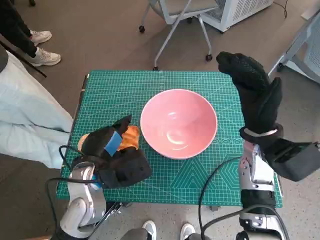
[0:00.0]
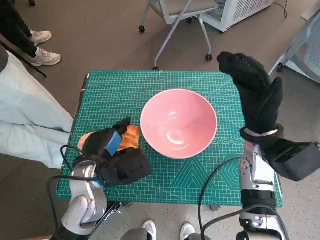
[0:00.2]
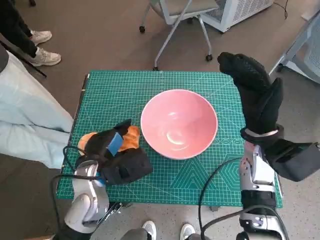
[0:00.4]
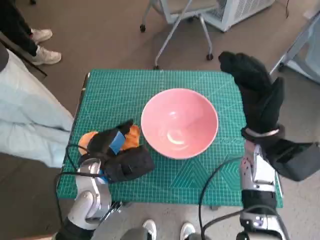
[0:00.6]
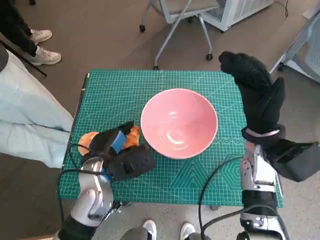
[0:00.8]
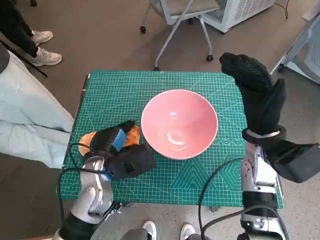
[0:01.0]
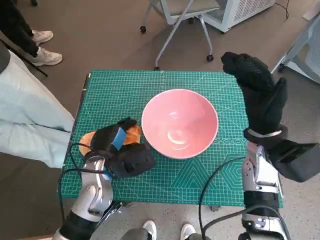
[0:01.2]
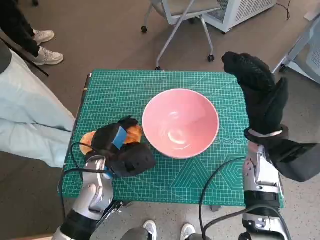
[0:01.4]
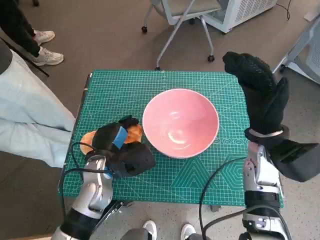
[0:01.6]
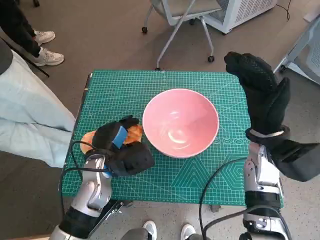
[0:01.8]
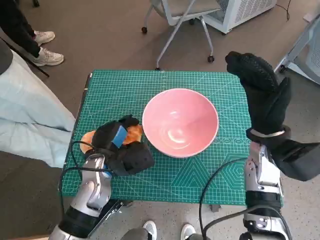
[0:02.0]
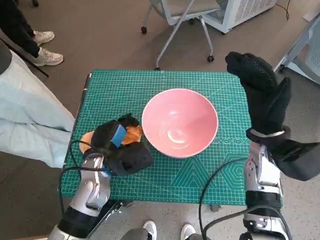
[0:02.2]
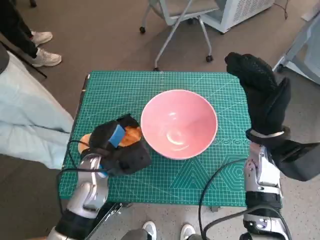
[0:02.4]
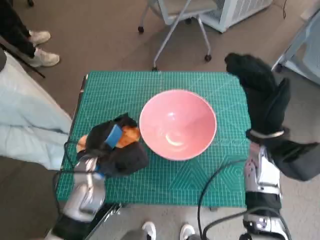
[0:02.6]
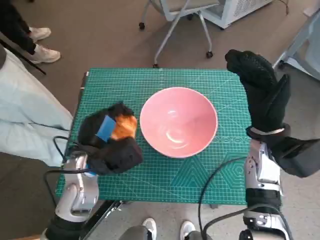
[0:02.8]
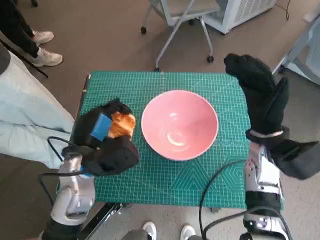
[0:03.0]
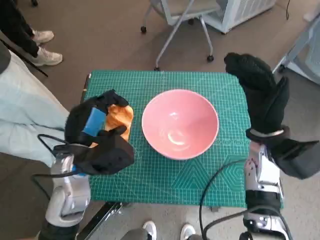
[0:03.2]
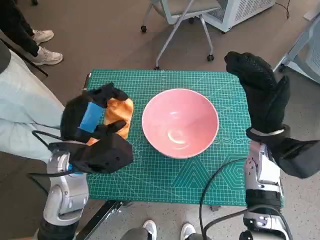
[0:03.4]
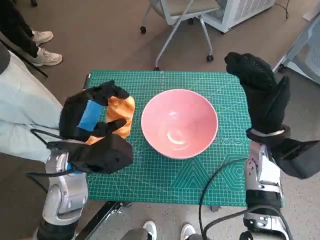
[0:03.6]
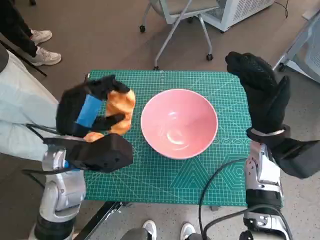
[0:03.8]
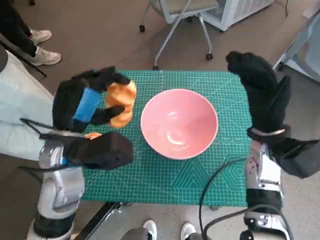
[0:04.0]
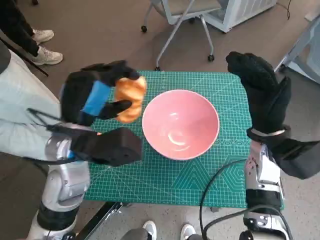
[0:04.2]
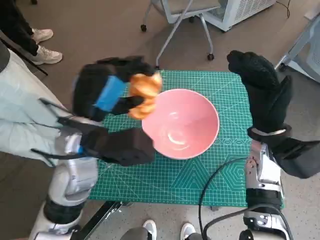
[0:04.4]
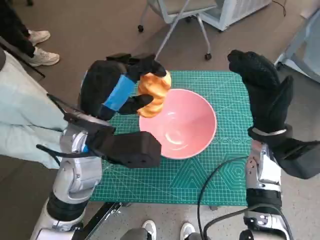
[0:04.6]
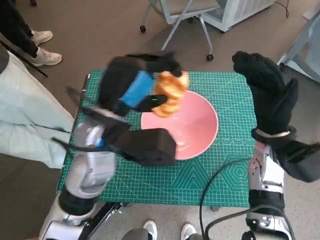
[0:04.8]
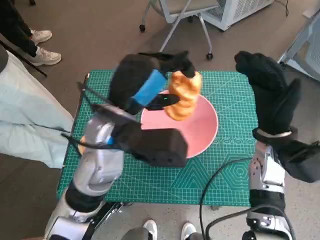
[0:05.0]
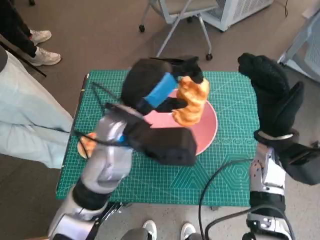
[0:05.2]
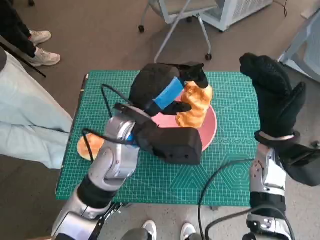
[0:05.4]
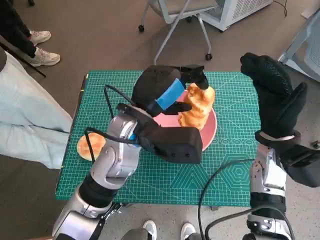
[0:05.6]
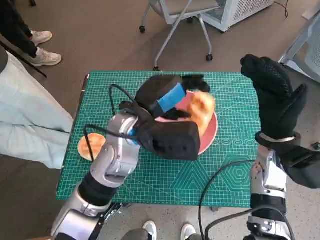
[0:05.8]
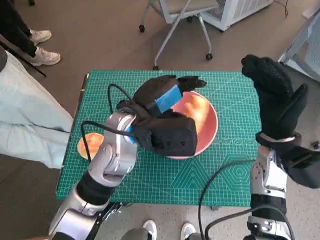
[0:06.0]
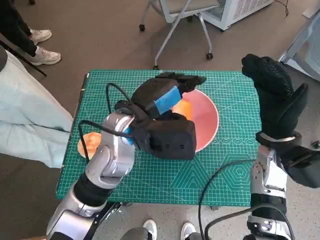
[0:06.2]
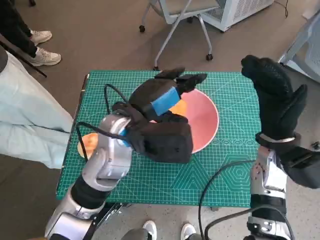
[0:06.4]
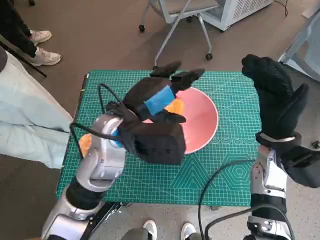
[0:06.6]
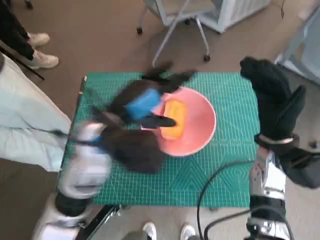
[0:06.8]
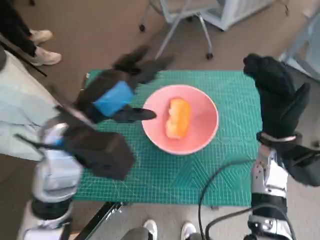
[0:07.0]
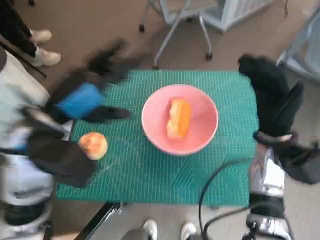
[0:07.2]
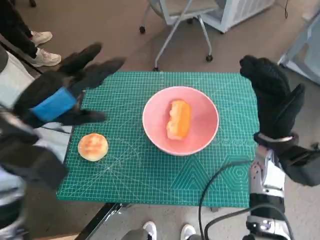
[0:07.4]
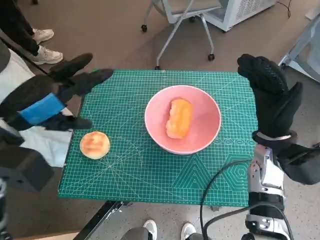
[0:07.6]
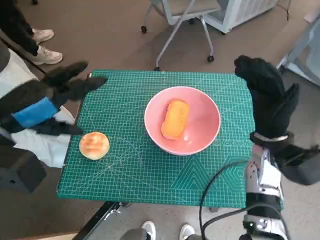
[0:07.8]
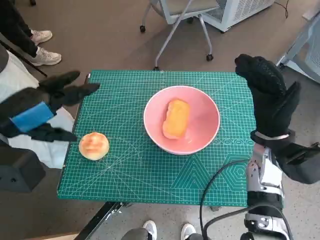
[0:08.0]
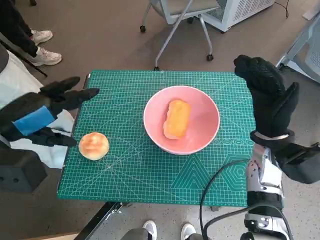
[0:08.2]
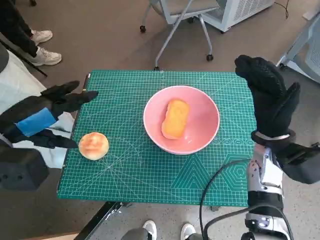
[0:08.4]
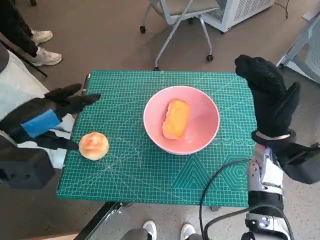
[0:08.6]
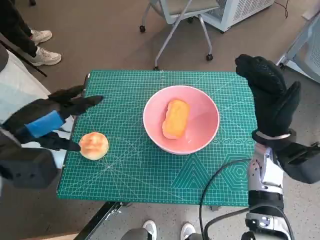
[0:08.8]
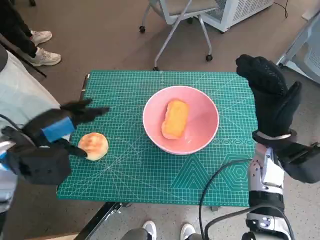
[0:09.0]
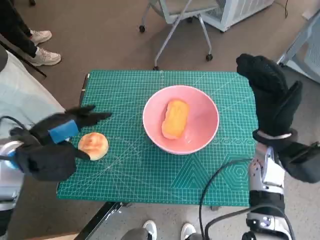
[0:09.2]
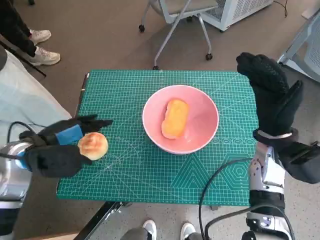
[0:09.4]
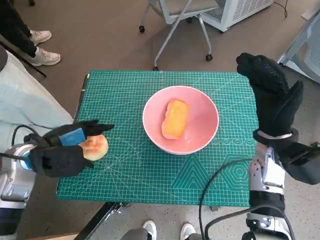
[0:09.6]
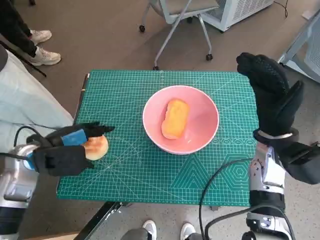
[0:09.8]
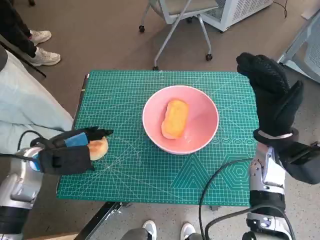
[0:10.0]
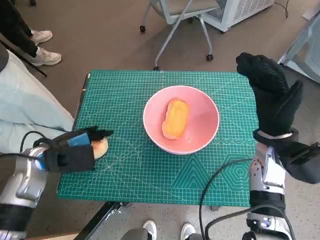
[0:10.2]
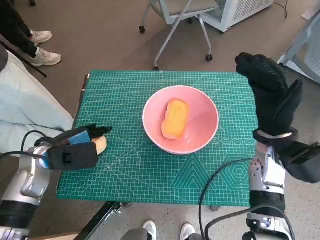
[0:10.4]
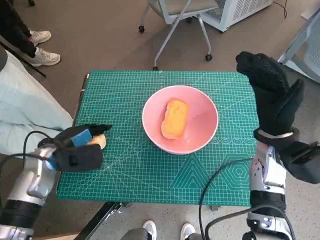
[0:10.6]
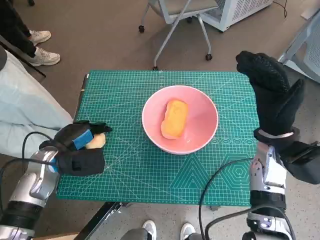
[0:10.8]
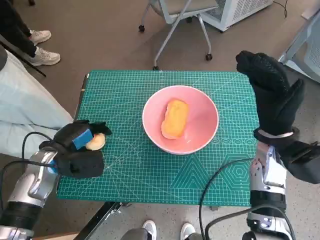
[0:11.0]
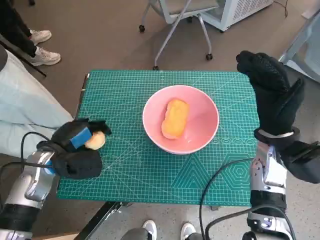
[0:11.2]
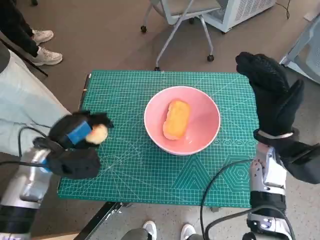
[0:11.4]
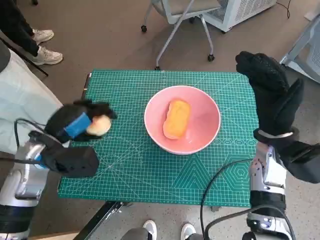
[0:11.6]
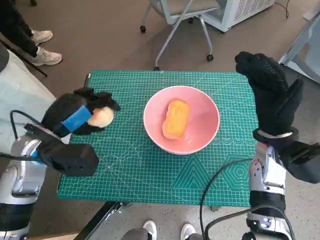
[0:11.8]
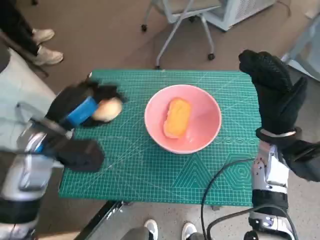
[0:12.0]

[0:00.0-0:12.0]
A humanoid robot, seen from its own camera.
Task of the whole recording: Push the bowl into the center of the table and put the bread into the bowl.
Step, 0:01.8 to 0:07.0: Place the long bread in pink bowl with left hand.
Step, 0:07.2 to 0:11.0: Grasp the round bread with left hand.
0:00.0 to 0:01.6: The left hand changes place by about 5 cm.
0:01.6 to 0:03.0: The left hand goes approximately 5 cm upward.
0:03.0 to 0:04.4: The left hand shifts approximately 10 cm upward.
0:04.4 to 0:06.0: The left hand heads to the right, covering approximately 5 cm.
0:06.0 to 0:07.6: The left hand is displaced to the left by some 20 cm.
0:07.6 to 0:09.0: The left hand goes some 5 cm downward.
0:09.0 to 0:10.4: The left hand goes about 10 cm downward.
0:10.4 to 0:12.0: The left hand goes some 10 cm upward.

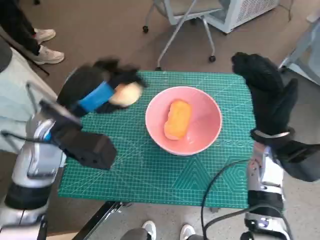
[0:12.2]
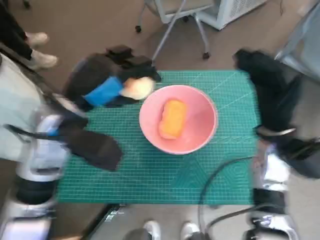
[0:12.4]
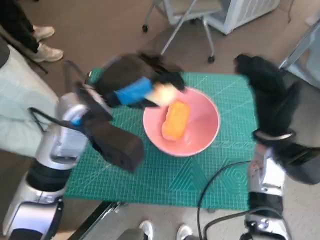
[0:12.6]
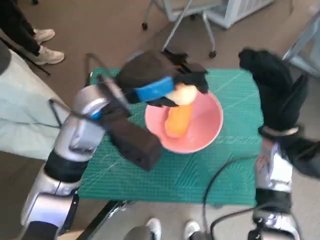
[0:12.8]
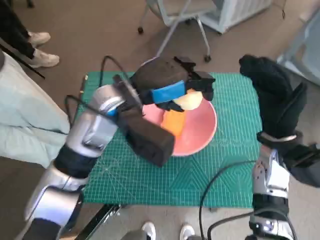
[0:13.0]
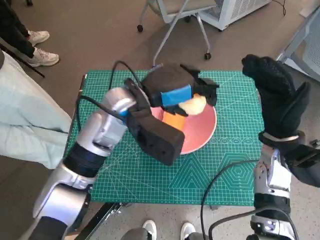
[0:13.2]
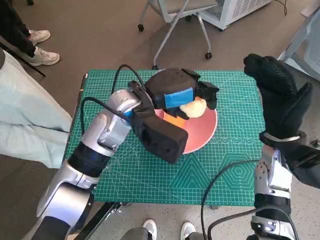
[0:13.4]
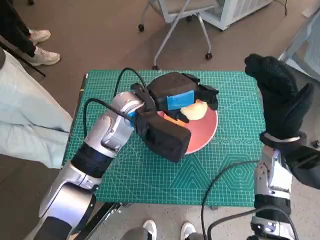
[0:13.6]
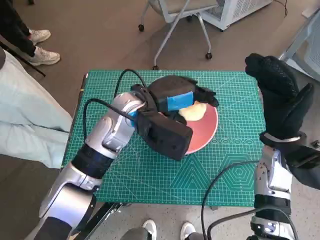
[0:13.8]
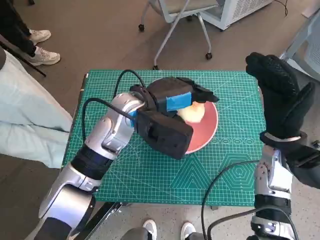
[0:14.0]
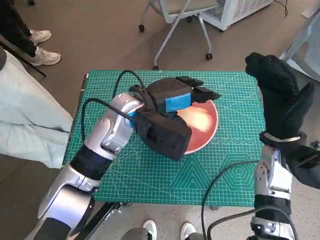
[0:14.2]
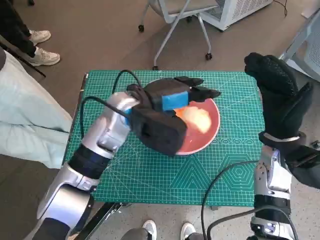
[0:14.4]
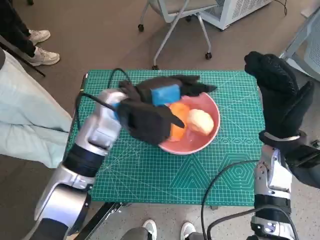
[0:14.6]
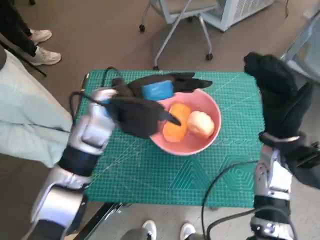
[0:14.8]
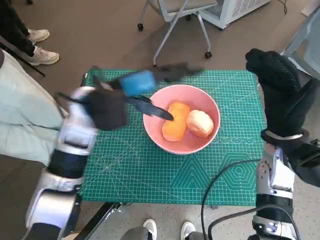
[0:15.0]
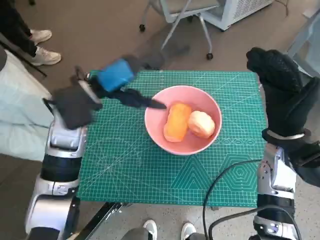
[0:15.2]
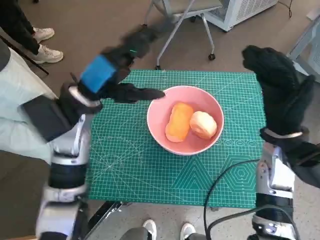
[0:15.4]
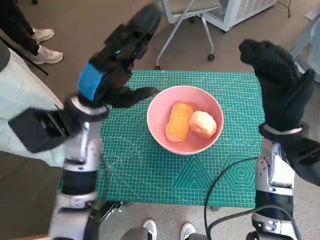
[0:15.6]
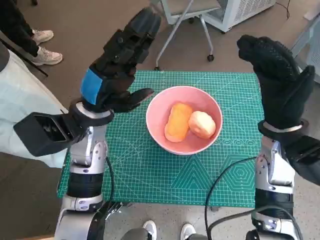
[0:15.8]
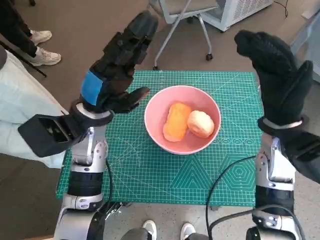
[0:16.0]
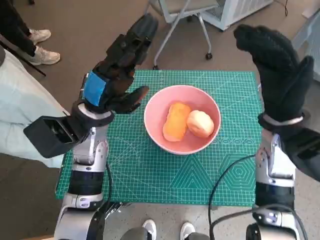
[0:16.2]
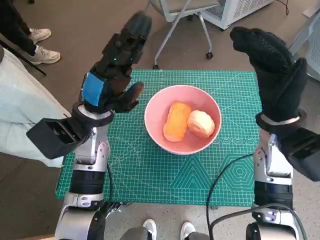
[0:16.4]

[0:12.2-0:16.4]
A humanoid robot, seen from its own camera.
Task of the whole recording: Push the bowl into the center of the table and put the bread into the bowl.
Step, 0:12.2 to 0:14.8: Place the round bread in pink bowl with left hand.
0:12.2 to 0:13.6: The left hand travels to the right and forward by about 15 cm.
0:13.6 to 0:15.0: The left hand is displaced to the left by roughly 5 cm.
0:15.0 to 0:16.4: The left hand shifts by approximately 5 cm.

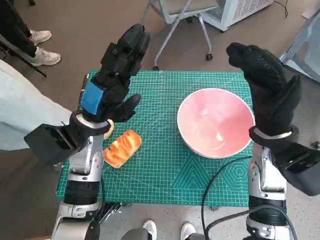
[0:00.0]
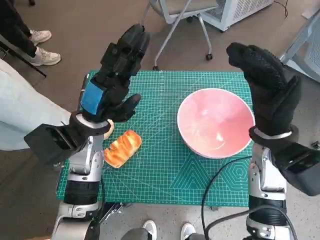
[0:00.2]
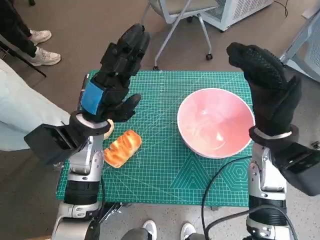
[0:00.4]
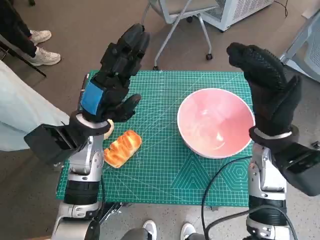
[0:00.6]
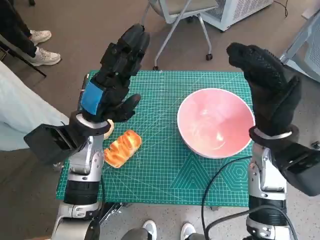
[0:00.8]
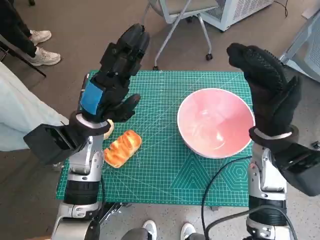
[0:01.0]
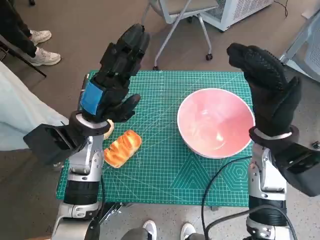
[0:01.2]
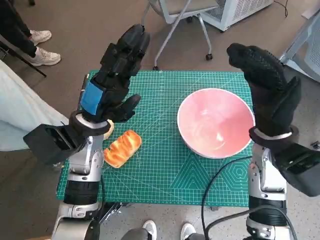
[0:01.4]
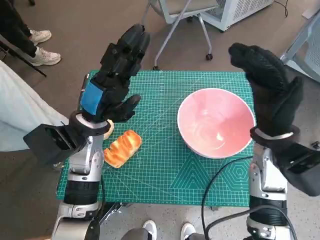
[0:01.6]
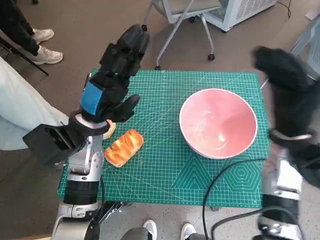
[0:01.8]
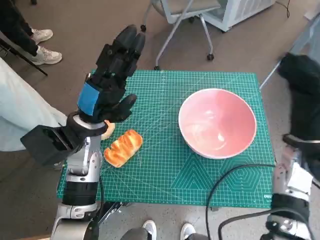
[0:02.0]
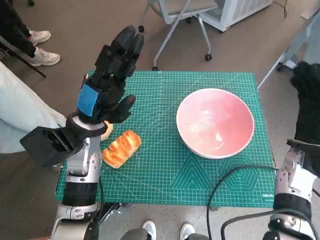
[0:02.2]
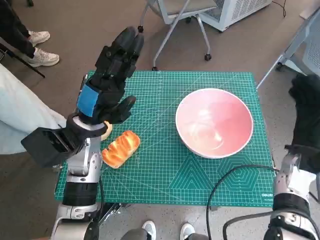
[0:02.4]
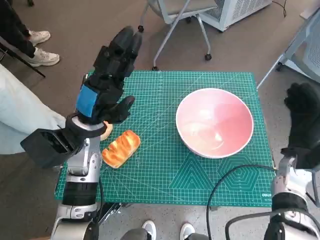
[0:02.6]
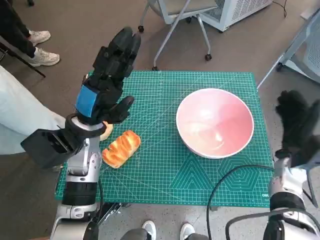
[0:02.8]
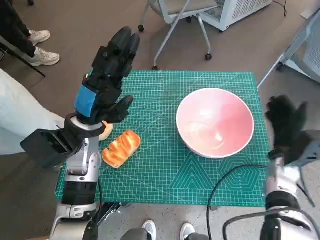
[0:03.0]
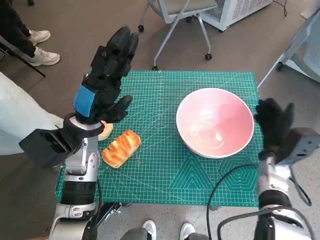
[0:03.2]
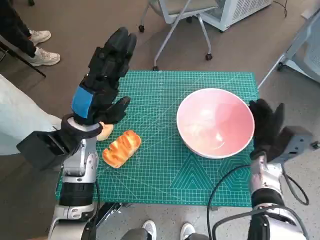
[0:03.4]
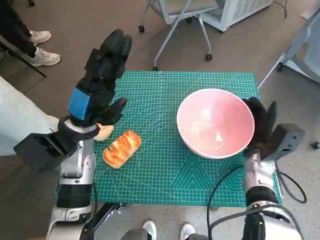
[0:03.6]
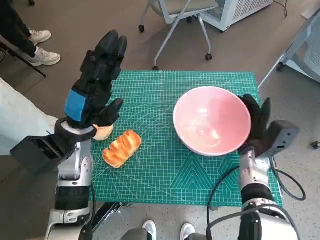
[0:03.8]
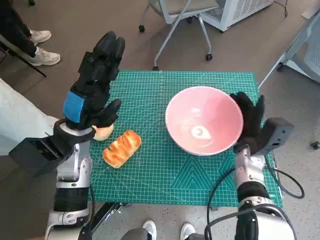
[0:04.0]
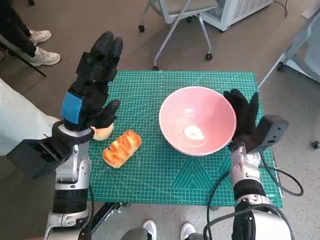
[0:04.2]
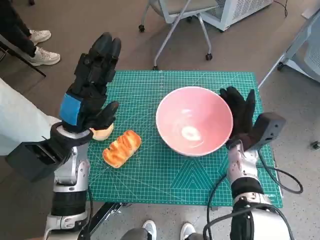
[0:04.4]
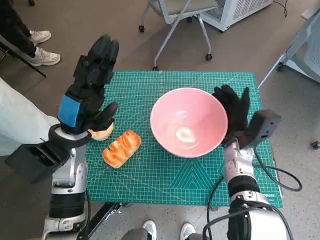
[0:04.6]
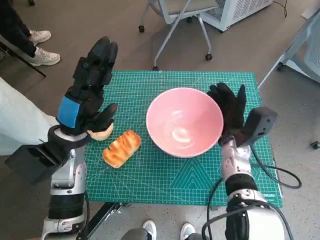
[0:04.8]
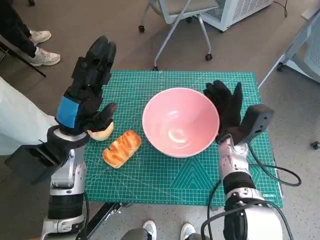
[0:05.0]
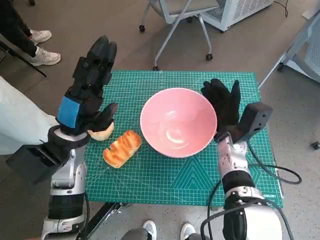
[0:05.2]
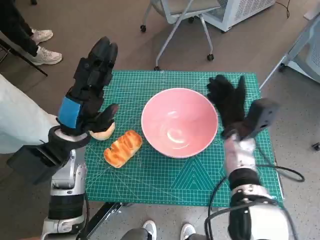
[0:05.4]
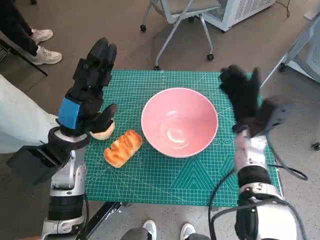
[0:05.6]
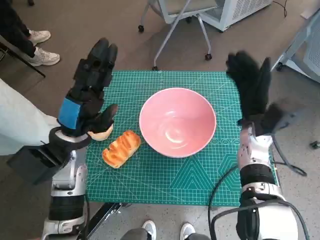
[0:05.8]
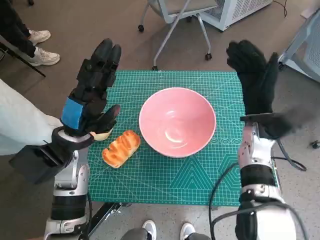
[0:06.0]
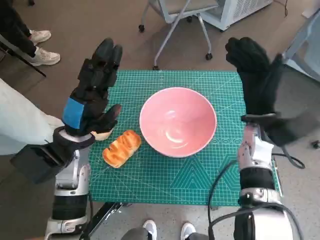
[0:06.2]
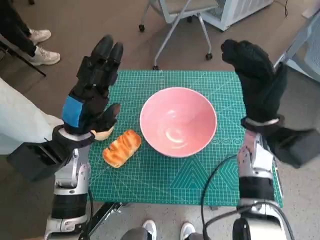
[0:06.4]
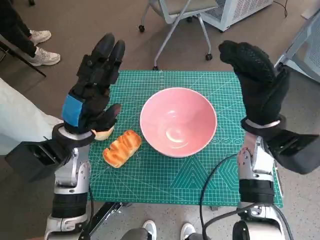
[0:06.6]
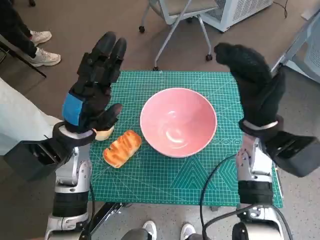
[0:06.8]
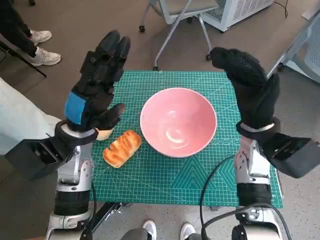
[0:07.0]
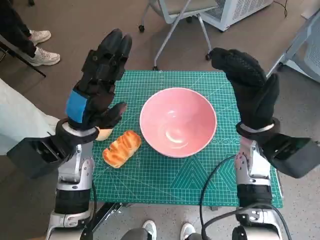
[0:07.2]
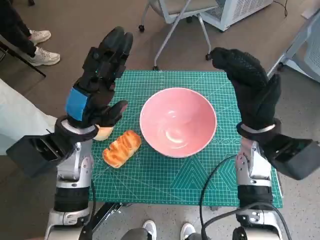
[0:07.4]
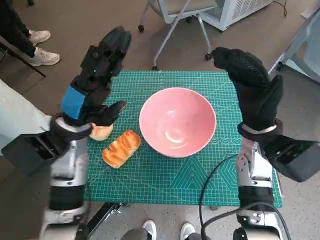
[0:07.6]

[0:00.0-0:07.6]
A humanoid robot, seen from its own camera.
Task of the whole recording: Push the bowl into the center of the table and put the bread into the bowl.
Step, 0:00.0 to 0:06.0: Move the pink bowl to the center of table with right hand.
0:01.6 to 0:03.0: The right hand is displaced downward and to the right by some 15 cm.
0:03.0 to 0:04.6: The right hand travels to the left by some 10 cm.
0:04.6 to 0:06.0: The right hand is displaced upward by roughly 5 cm.
0:06.0 to 0:07.6: The right hand moves roughly 5 cm.
